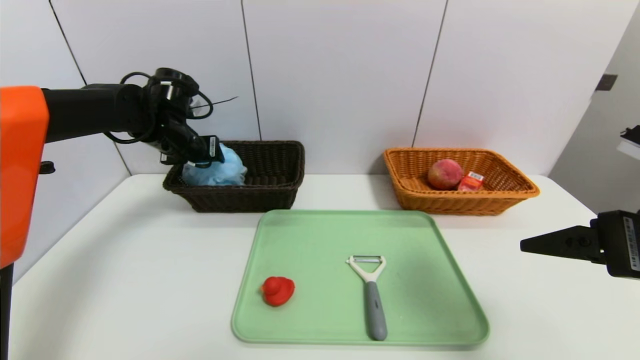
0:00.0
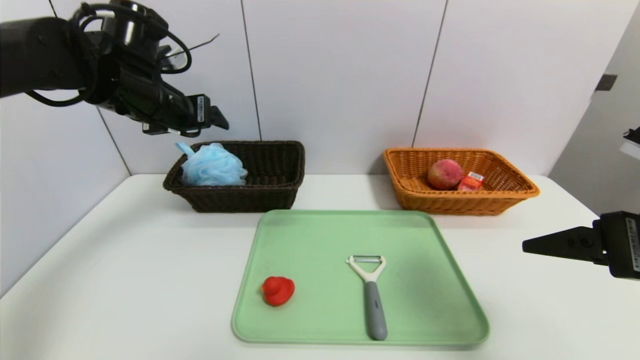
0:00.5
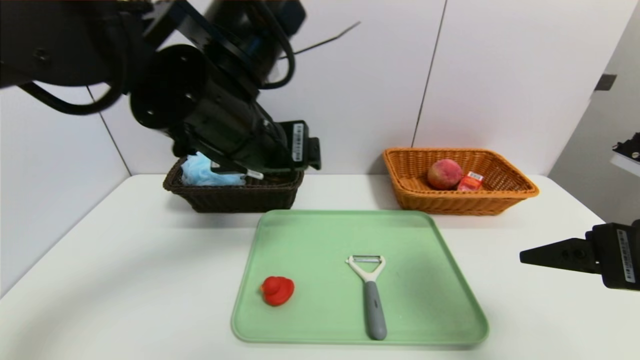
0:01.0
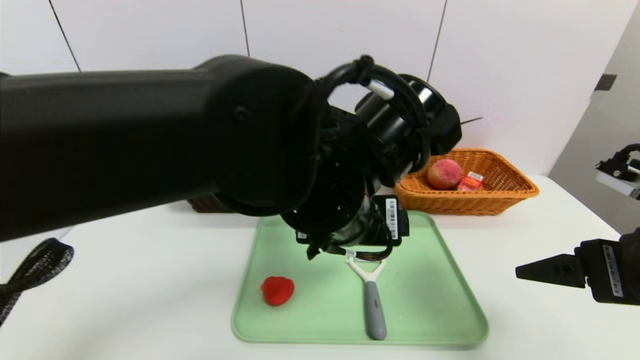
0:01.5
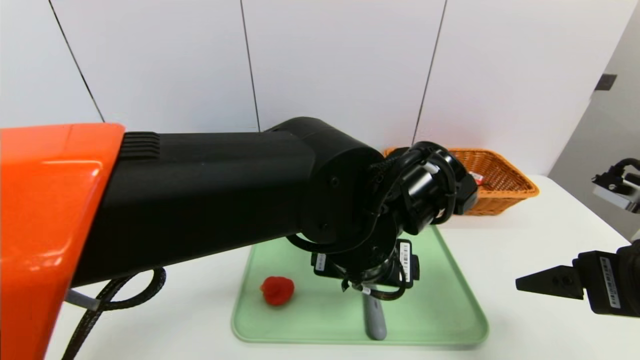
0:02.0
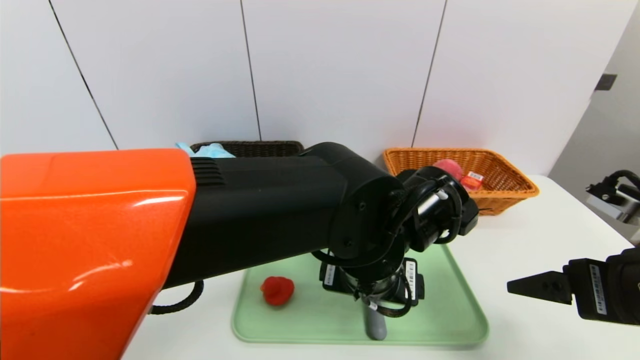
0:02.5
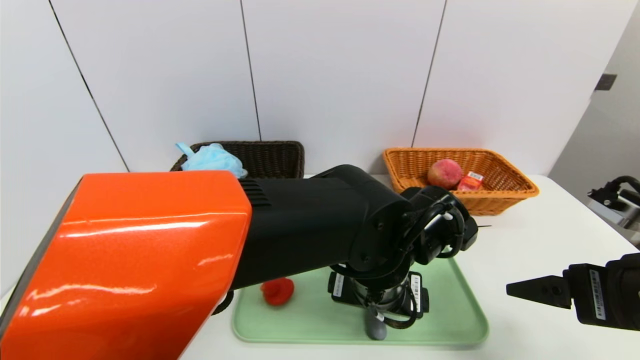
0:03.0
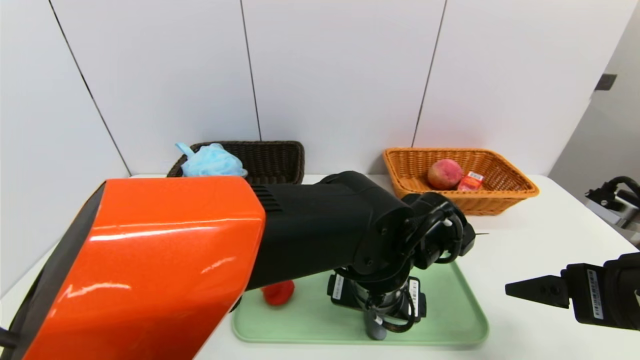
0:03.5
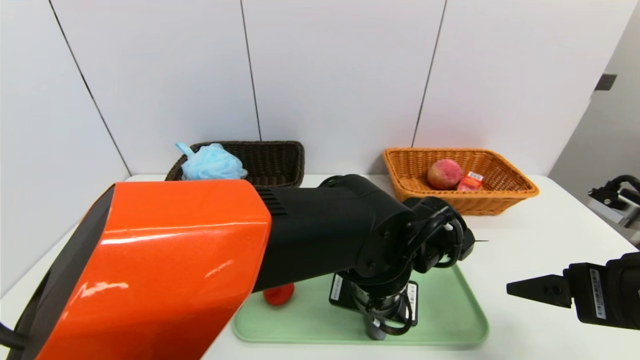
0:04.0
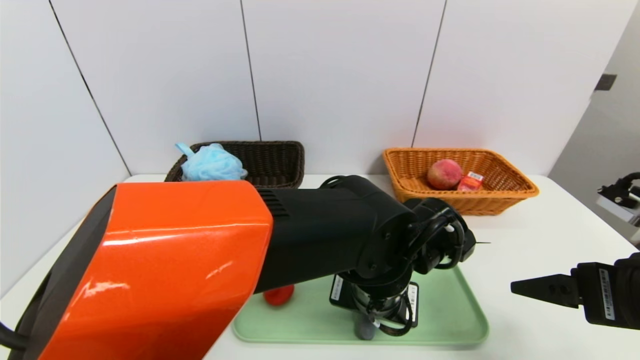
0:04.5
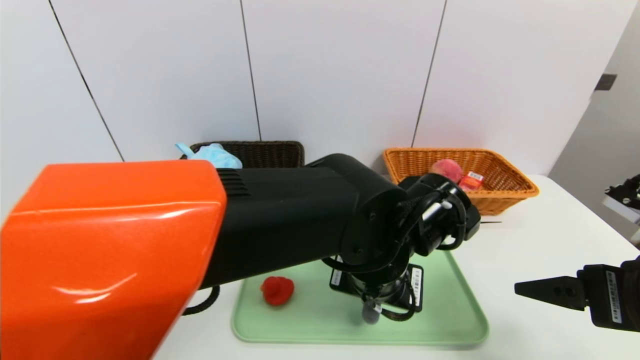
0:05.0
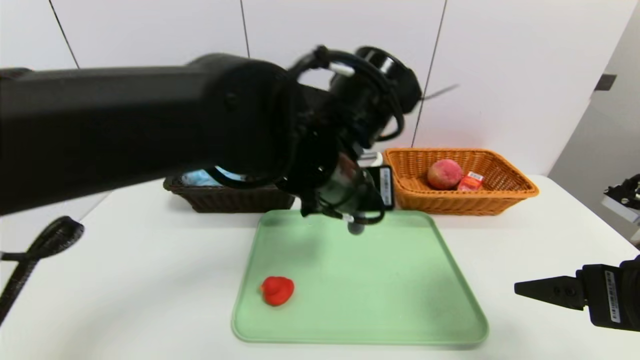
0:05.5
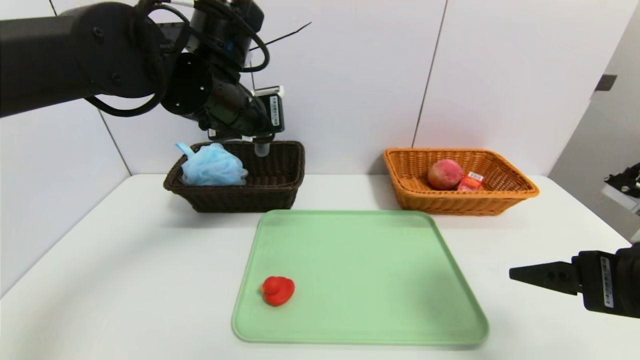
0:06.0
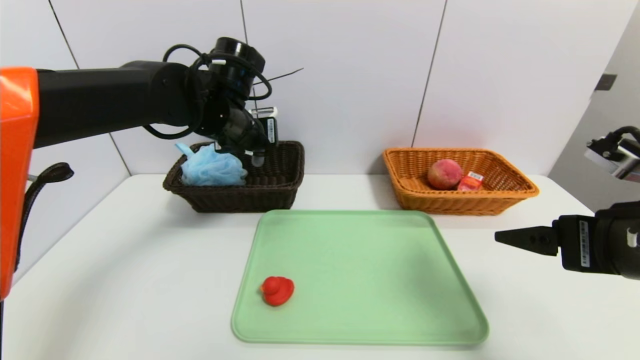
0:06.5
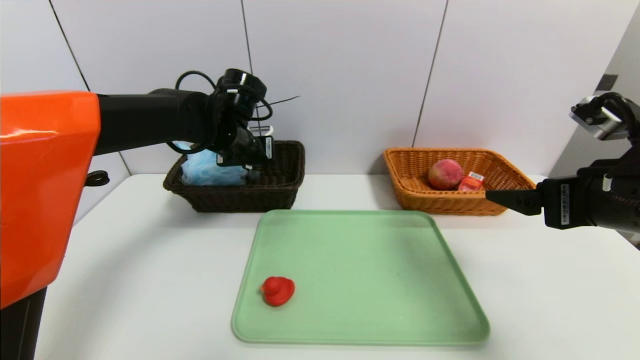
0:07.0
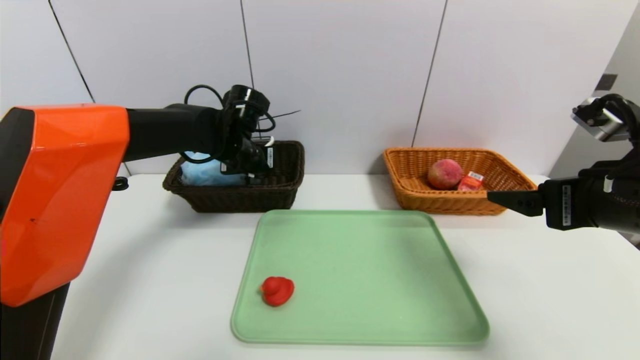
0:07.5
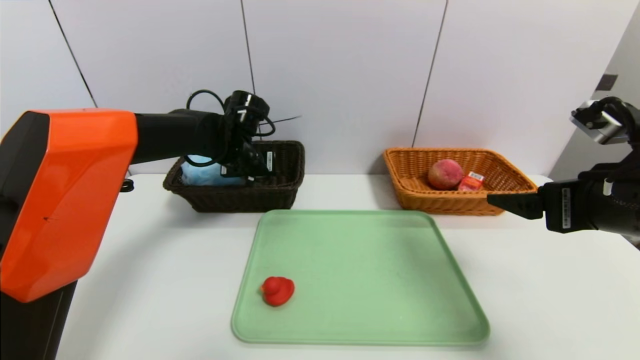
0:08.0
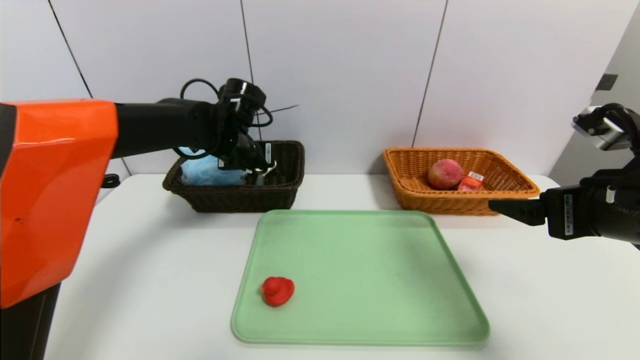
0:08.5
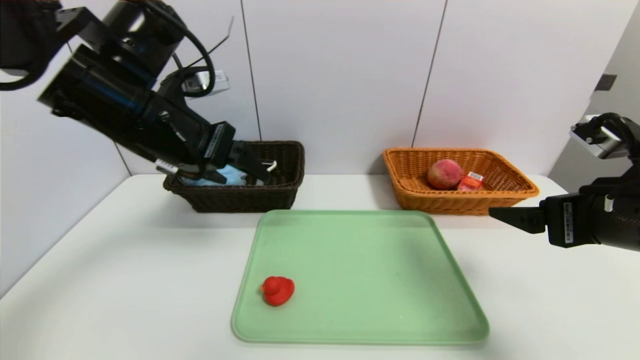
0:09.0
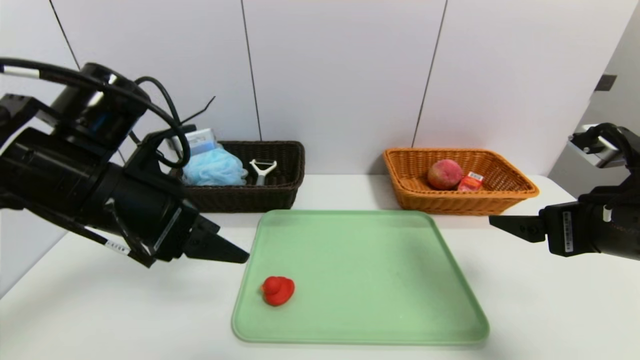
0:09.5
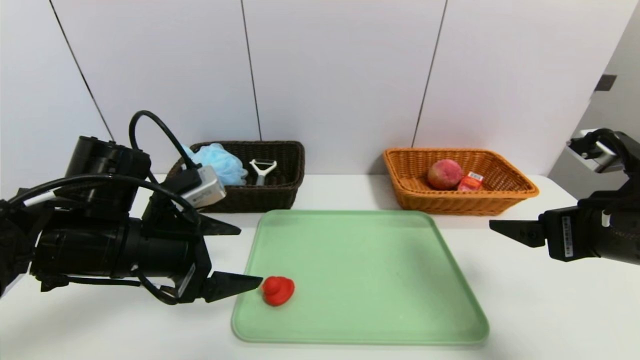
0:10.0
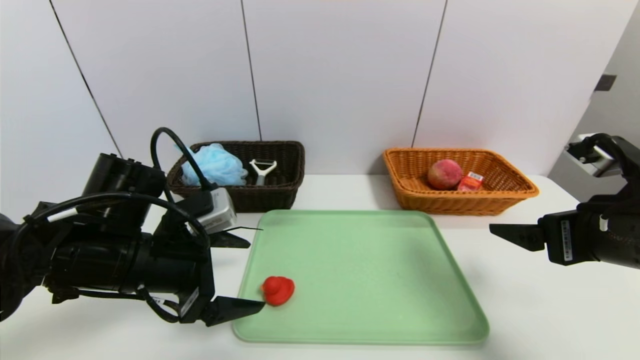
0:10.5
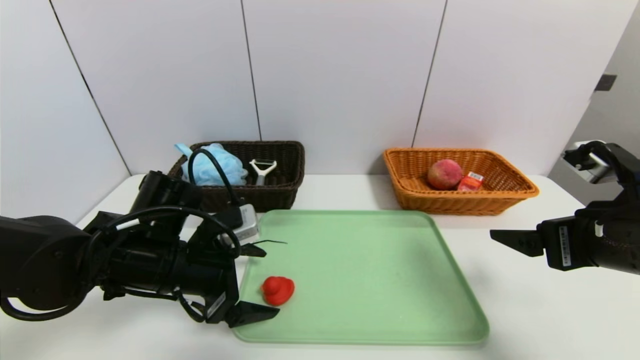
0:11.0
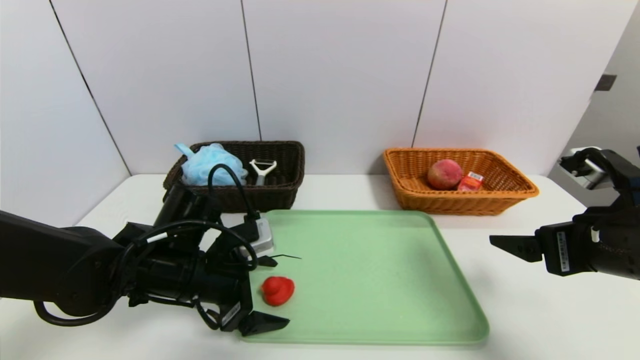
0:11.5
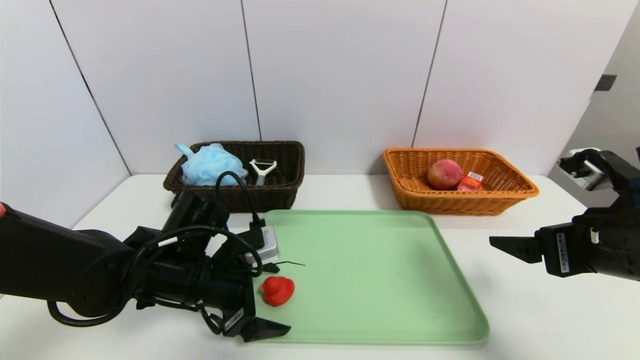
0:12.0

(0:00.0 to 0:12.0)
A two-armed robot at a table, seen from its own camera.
Task of the whole recording: place the food in the right basket with the right gripper, and place the non food items in the left basket with the left gripper.
Step, 0:01.0 - 0:08.5: Grasp the peeler and put it in the left basket.
0:00.0 - 0:02.0: The left gripper travels to the right and backward by about 35 cm.
0:02.0 - 0:04.0: The left gripper travels downward by roughly 5 cm, and closes its fingers.
0:04.0 - 0:06.0: The left gripper moves to the left, upward and forward, approximately 25 cm, and closes up.
0:06.0 - 0:08.0: The right gripper shifts roughly 5 cm forward; the left gripper moves downward and forward, roughly 15 cm.
0:08.0 - 0:10.0: The left gripper moves backward, about 20 cm, and opens up.
0:10.0 - 0:12.0: The left gripper moves downward, roughly 10 cm.

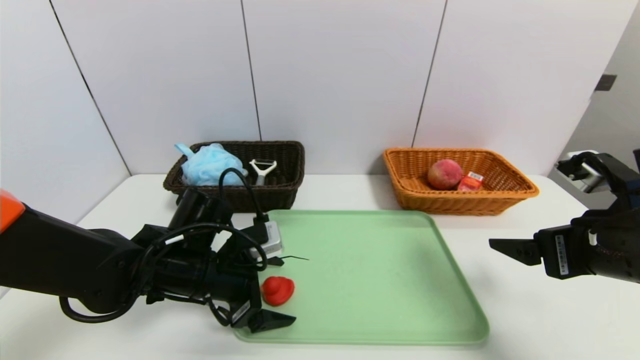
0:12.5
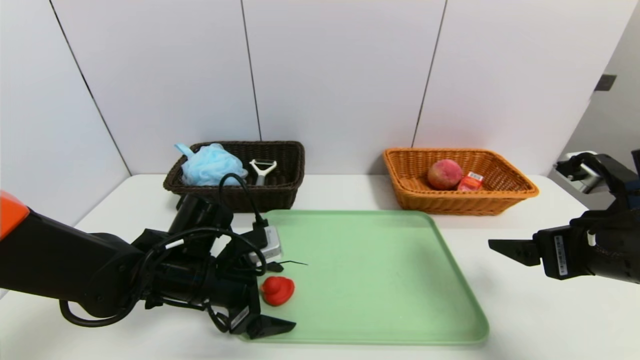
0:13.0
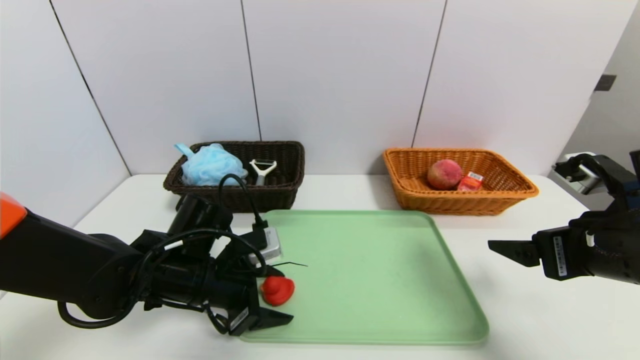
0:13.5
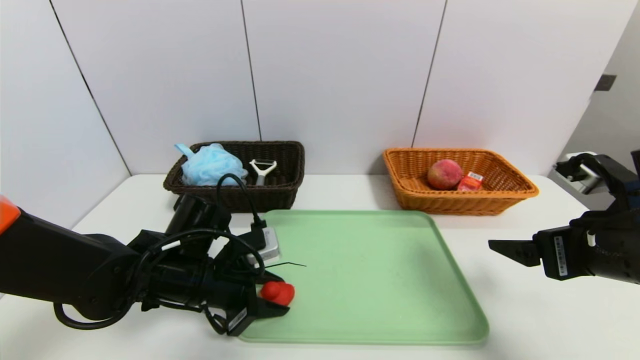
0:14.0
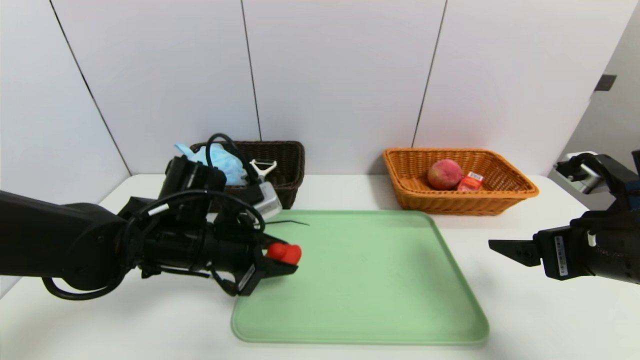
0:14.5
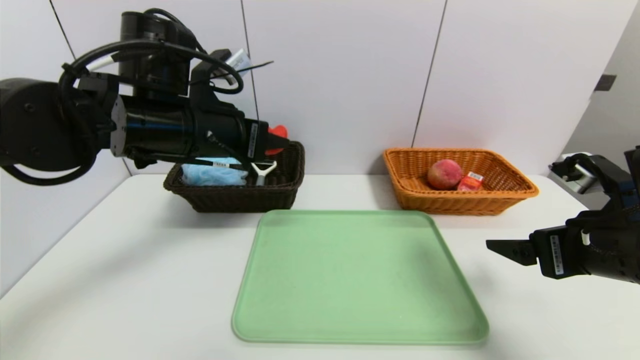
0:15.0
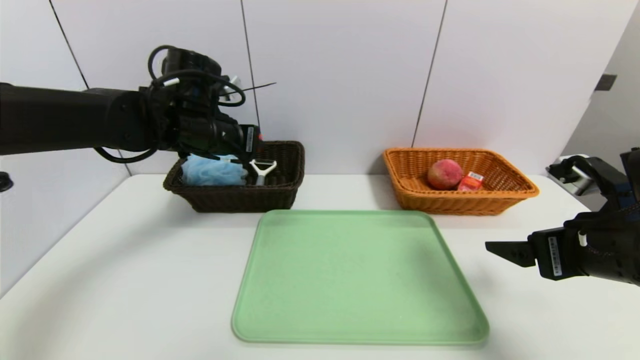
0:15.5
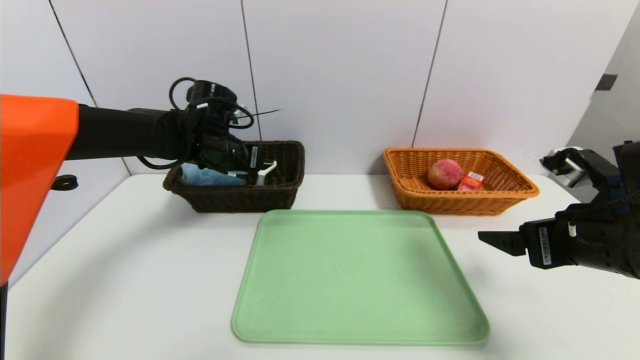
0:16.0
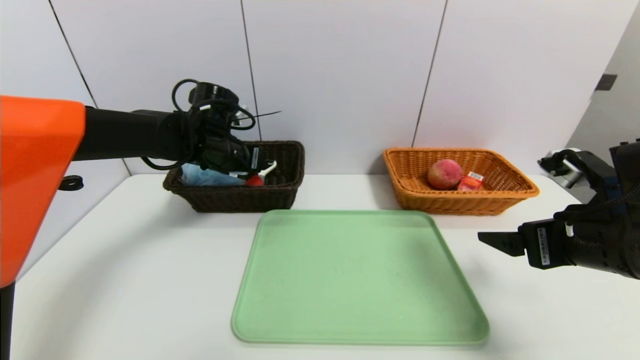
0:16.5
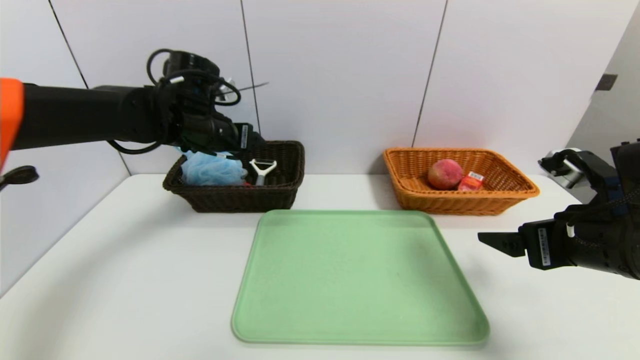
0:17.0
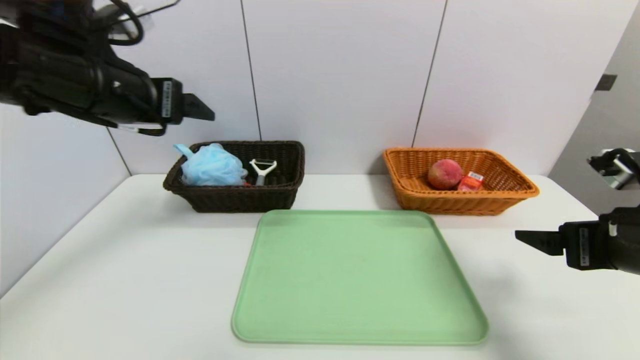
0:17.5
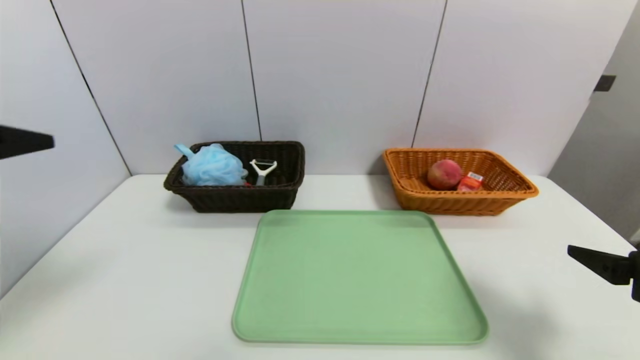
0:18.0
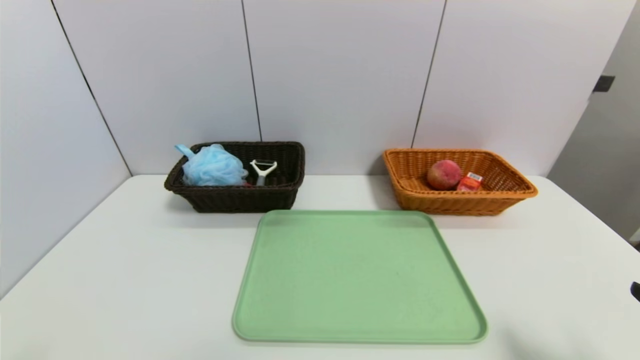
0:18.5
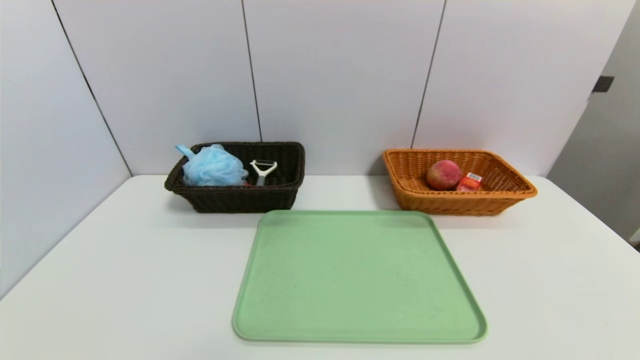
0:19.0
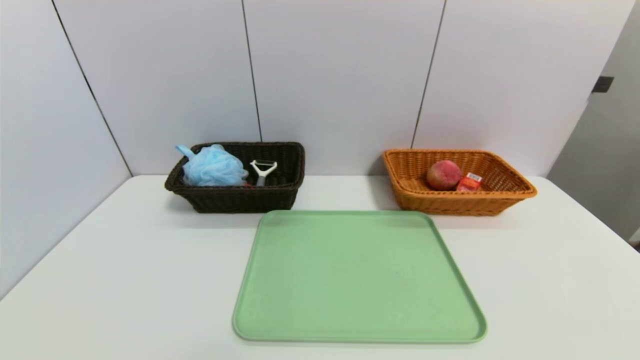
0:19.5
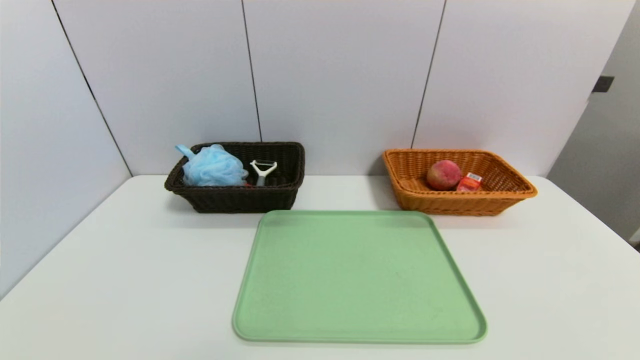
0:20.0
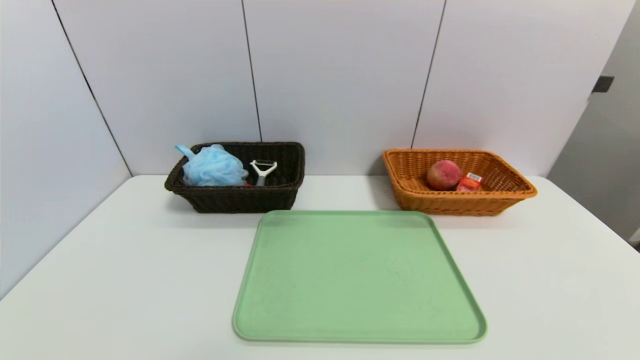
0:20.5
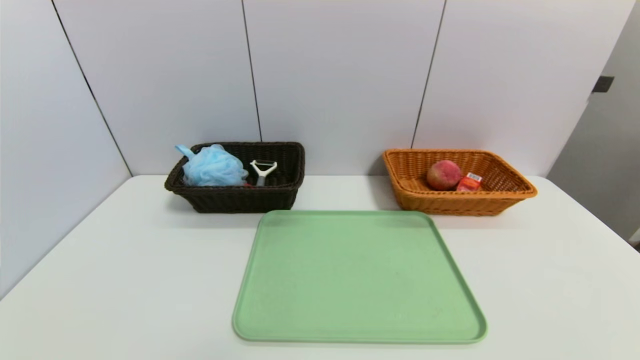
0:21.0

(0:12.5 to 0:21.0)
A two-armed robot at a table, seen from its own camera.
Task of the whole recording: place the food in the right basket with the right gripper, and place the non food items in the left basket with the left gripper.
Step, 0:12.5 - 0:17.0: Grasp the red duck and put it in the left basket.
0:12.5 - 0:14.5: The left gripper closes its fingers.
0:14.5 - 0:16.5: The left gripper is displaced forward by about 15 cm.
0:16.5 - 0:19.0: The right gripper is displaced backward by some 25 cm. The left gripper heads backward, covering approximately 50 cm, and opens up.
